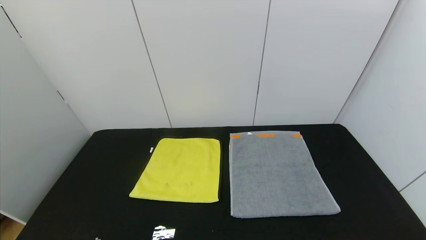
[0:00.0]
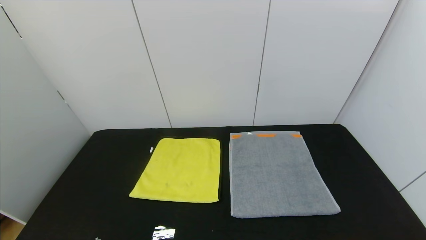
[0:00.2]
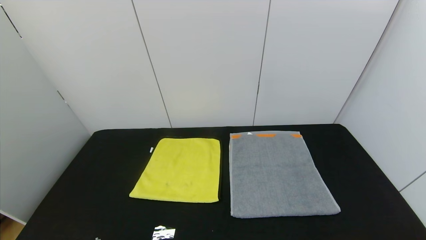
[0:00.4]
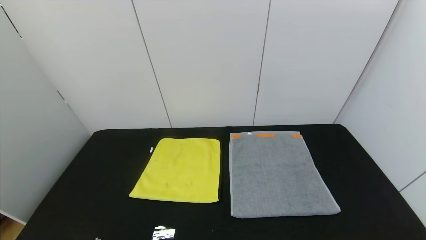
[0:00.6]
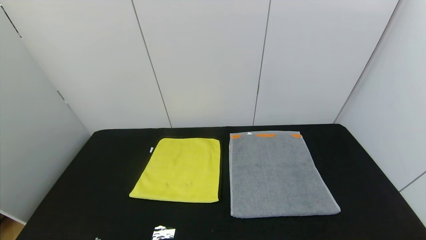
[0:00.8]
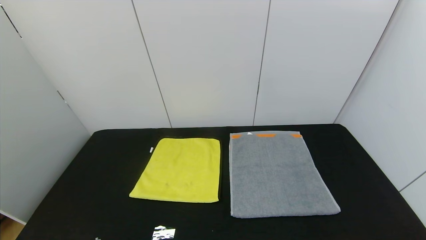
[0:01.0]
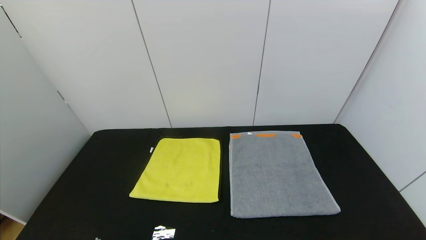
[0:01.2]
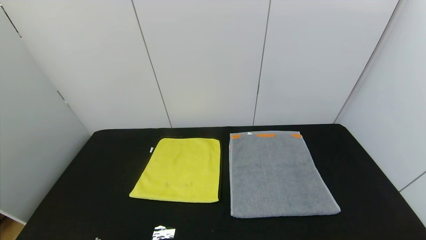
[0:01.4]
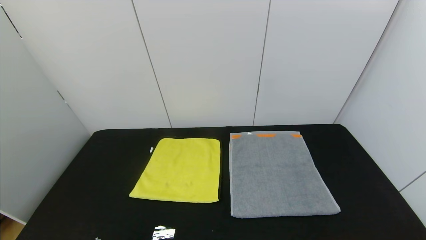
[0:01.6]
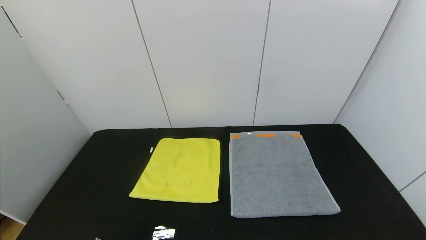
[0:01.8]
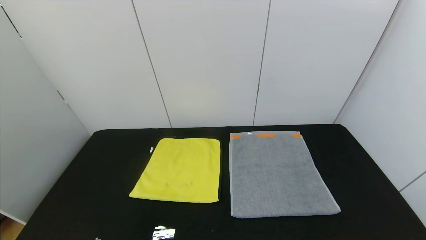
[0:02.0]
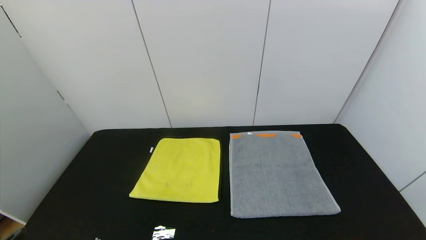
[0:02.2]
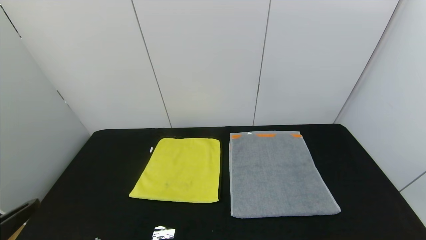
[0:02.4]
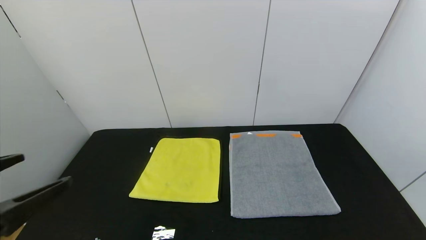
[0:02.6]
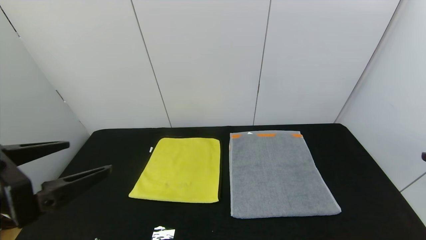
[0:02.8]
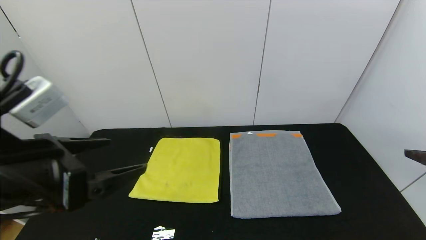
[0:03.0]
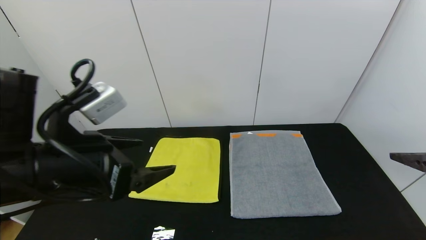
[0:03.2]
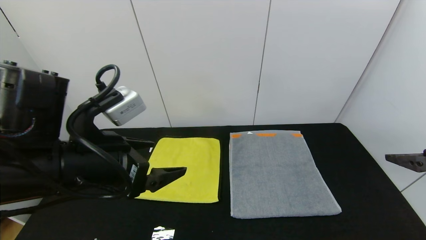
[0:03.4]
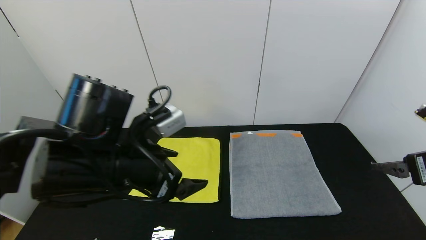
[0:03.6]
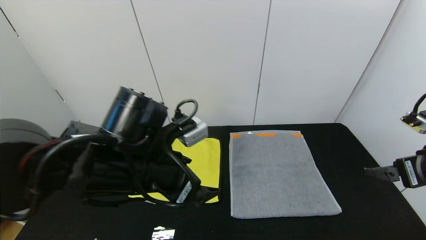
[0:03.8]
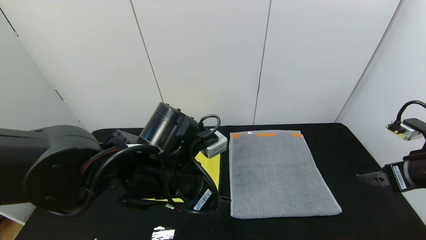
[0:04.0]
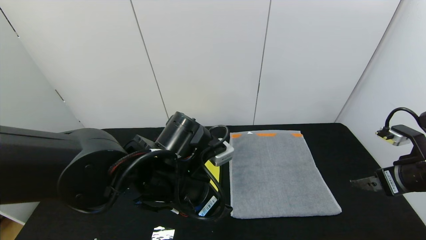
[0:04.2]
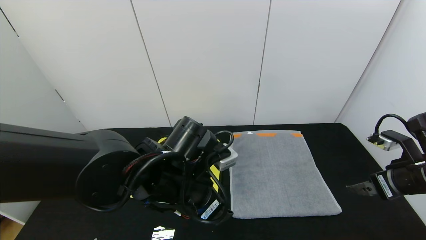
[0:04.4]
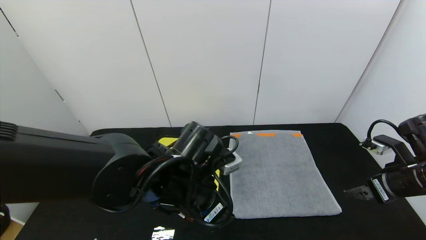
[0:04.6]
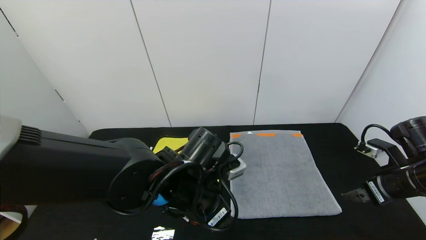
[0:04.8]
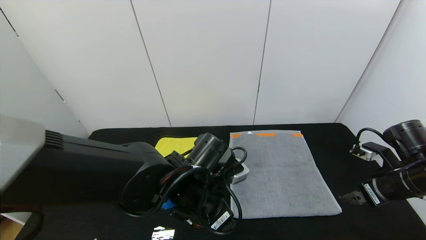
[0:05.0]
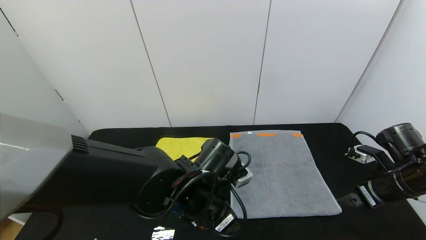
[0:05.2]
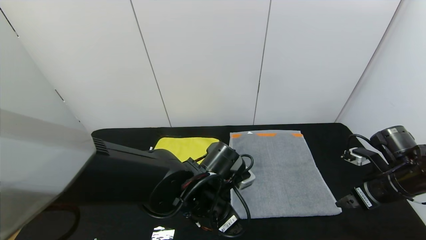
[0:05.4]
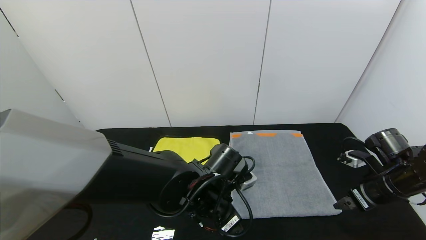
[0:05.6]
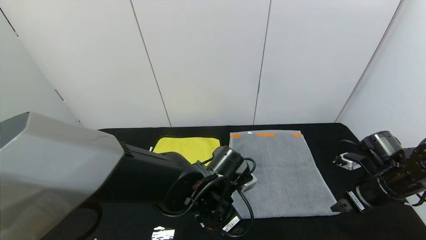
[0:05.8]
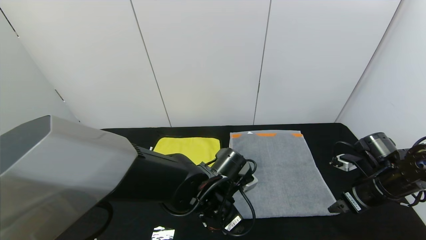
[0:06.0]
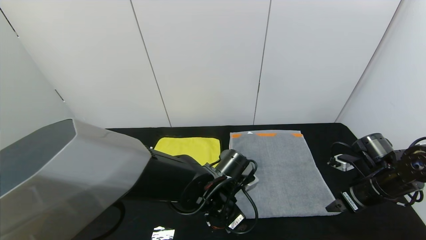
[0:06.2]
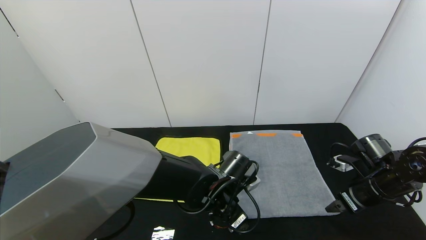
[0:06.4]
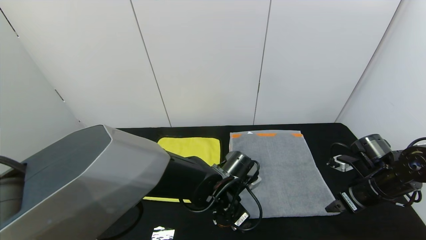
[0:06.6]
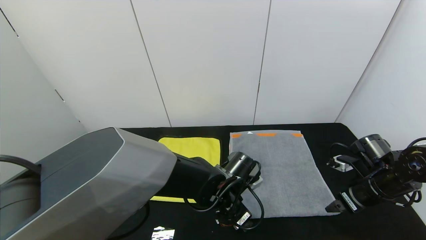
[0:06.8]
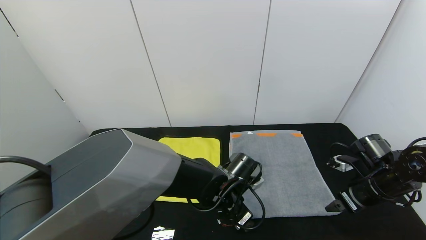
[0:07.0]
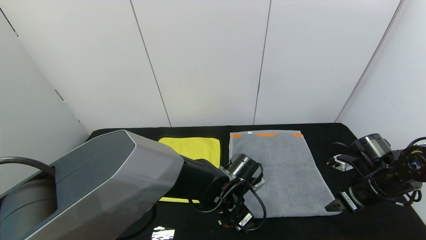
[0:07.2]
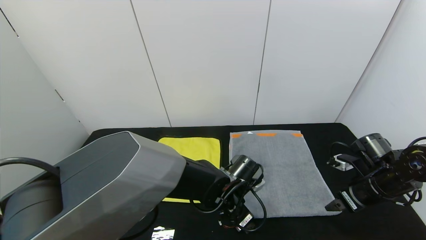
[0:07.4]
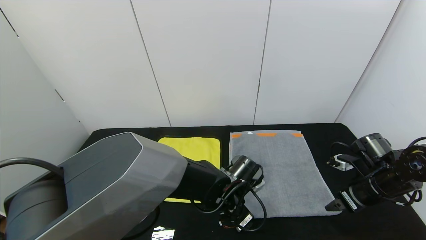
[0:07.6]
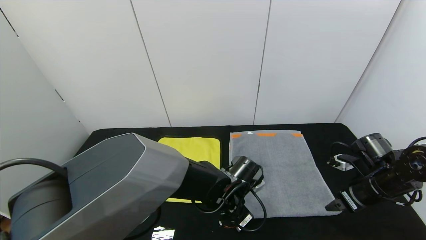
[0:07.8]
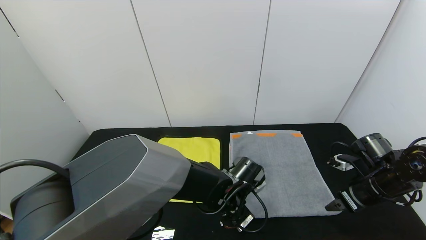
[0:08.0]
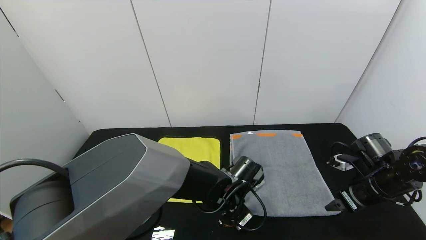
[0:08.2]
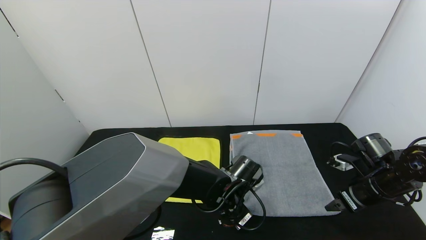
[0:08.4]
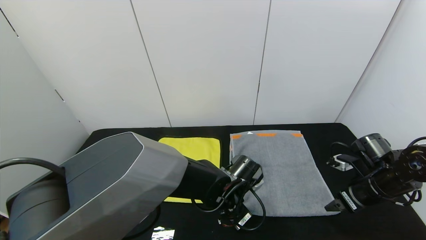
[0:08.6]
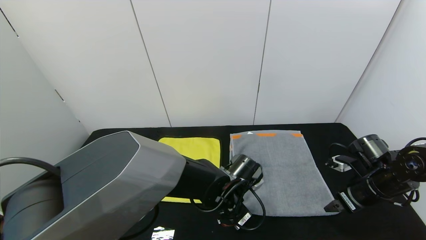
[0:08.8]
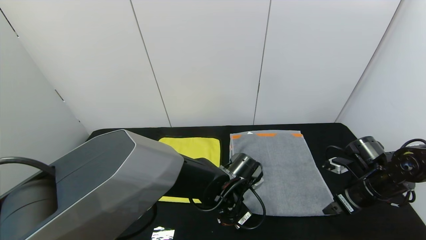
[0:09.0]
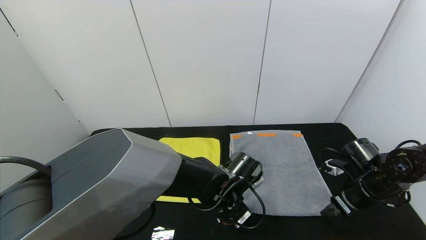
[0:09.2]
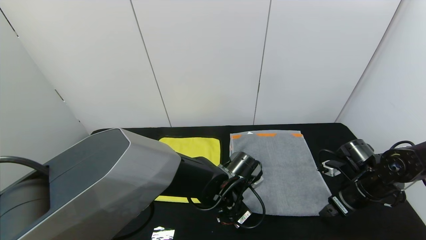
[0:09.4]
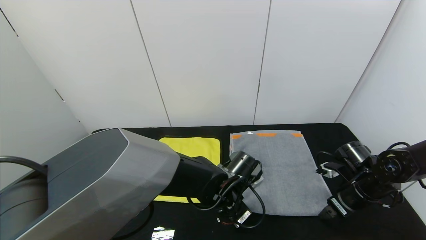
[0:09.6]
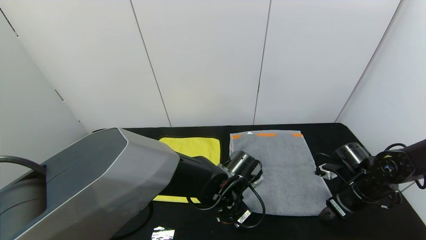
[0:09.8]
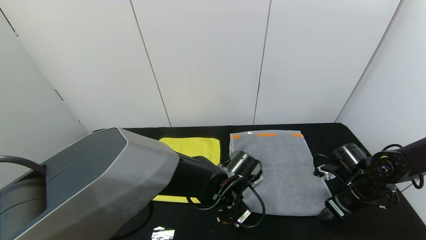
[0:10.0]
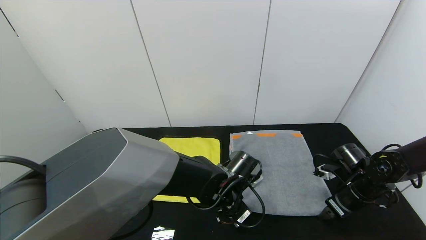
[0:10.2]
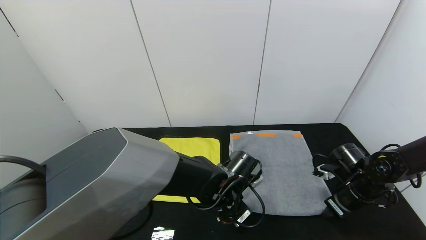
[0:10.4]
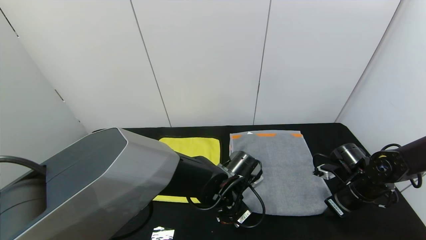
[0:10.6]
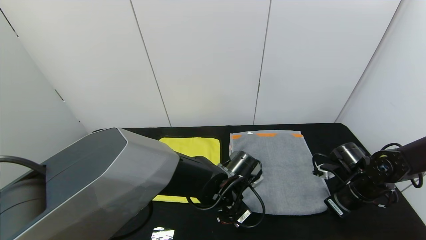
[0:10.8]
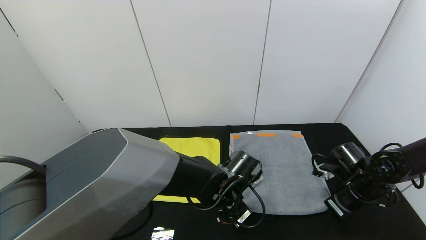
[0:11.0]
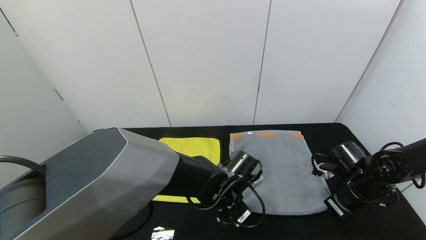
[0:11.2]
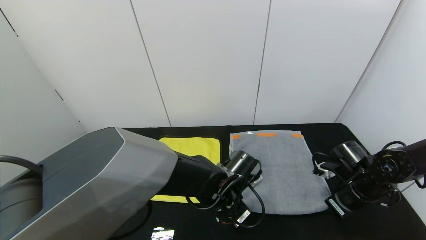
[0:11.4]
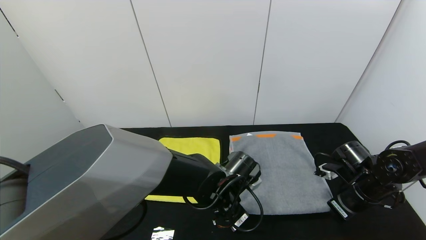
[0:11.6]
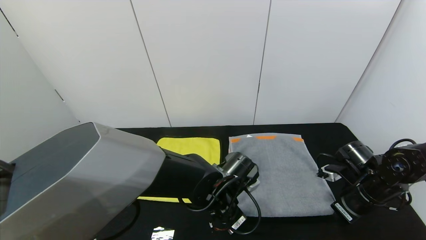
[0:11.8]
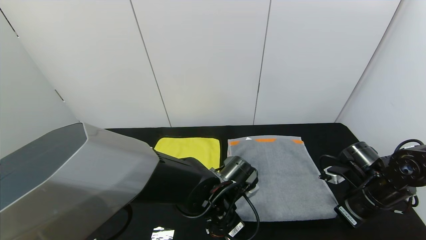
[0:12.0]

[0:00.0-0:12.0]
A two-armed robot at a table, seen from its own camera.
Task of the whole recording: Use the gripper to fold the yellow towel and grey towel in half twice,then put the yellow towel on the grey towel.
1.6 to 3.0 s: The grippers both shift forward and upward by about 20 cm.
3.0 to 4.4 s: The left gripper heads to the right, downward and forward, covering some 20 cm. Meanwhile the right gripper is displaced forward and downward by roughly 15 cm.
4.4 to 6.0 s: The left gripper is displaced downward and to the right by some 10 cm. The right gripper moves downward, some 5 cm.
6.0 to 7.6 s: The left gripper ends up approximately 5 cm from where it was.
7.6 to 9.0 s: The left gripper closes its fingers.
9.0 to 10.4 s: The right gripper closes.
10.4 to 12.0 s: The right gripper ends up about 5 cm from where it was, and closes.

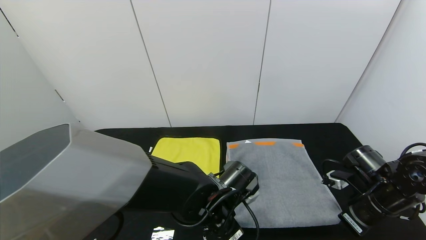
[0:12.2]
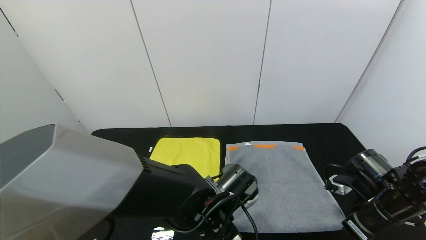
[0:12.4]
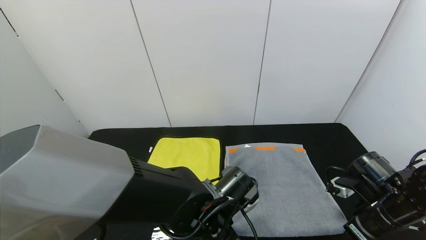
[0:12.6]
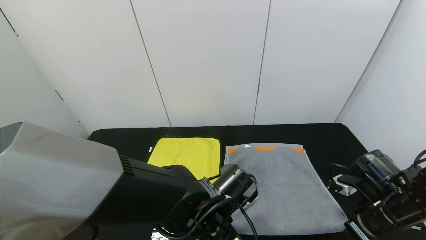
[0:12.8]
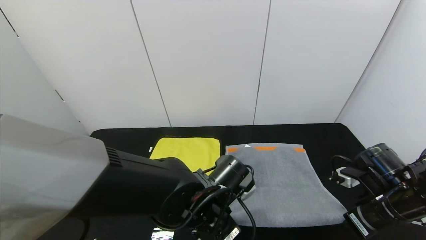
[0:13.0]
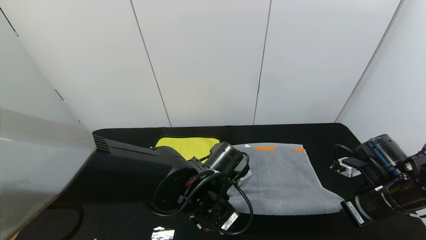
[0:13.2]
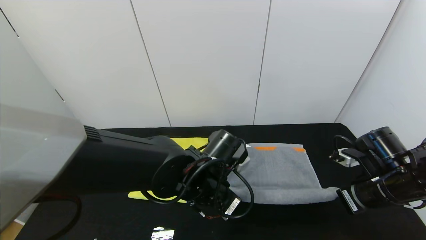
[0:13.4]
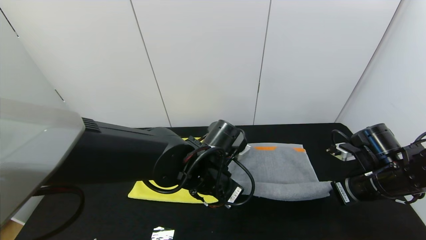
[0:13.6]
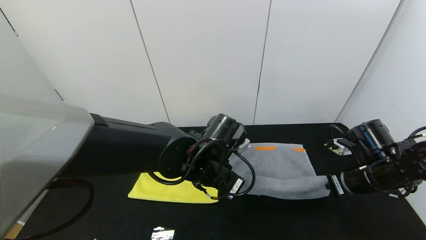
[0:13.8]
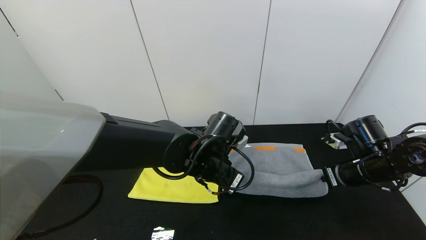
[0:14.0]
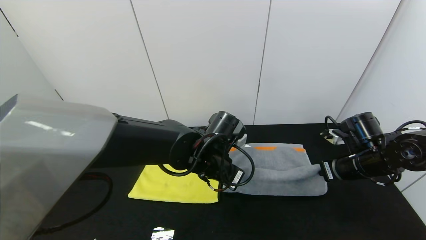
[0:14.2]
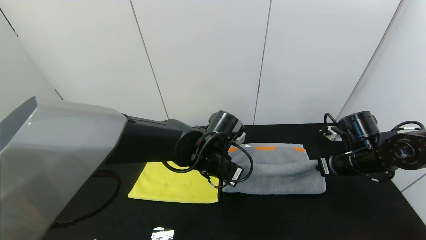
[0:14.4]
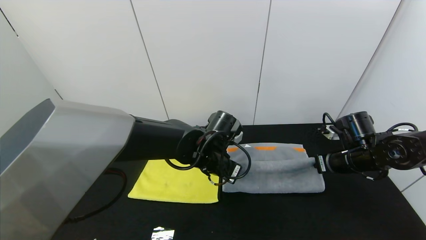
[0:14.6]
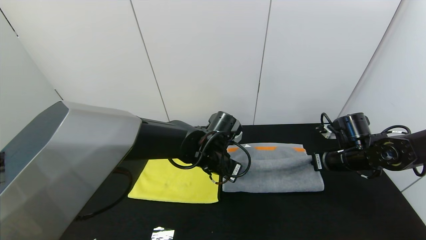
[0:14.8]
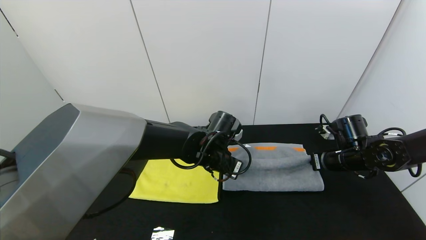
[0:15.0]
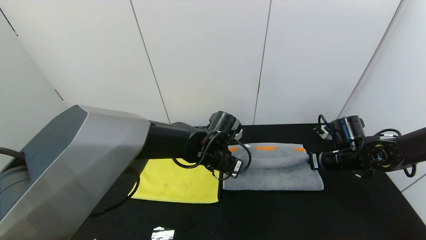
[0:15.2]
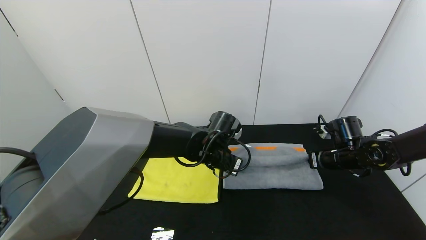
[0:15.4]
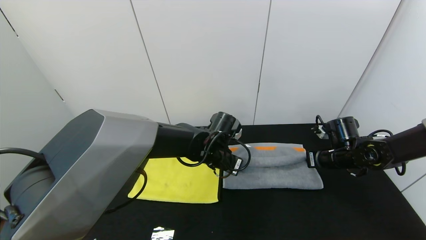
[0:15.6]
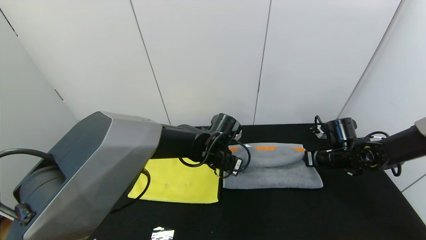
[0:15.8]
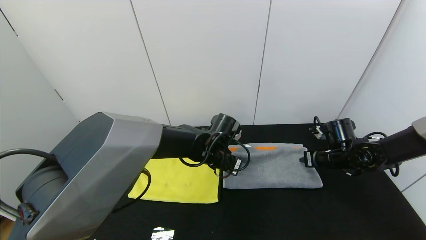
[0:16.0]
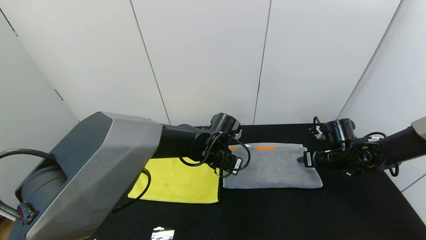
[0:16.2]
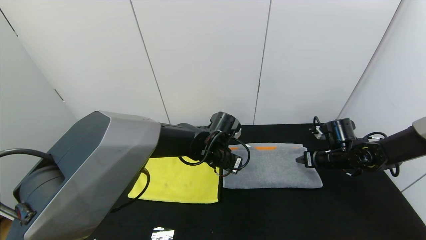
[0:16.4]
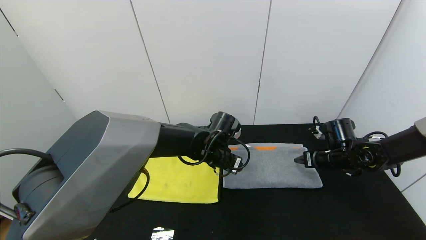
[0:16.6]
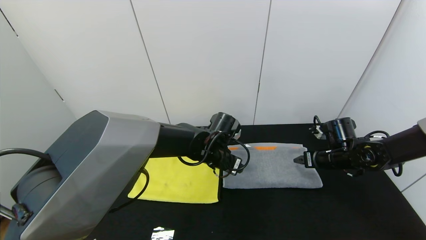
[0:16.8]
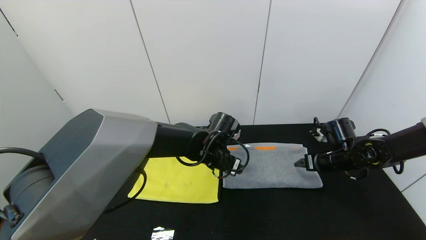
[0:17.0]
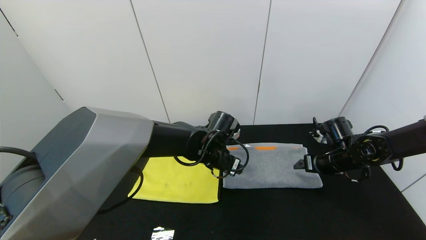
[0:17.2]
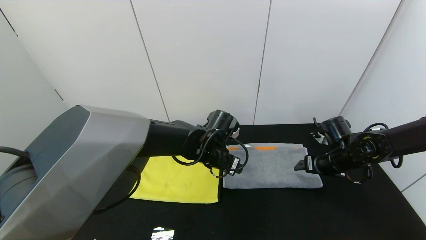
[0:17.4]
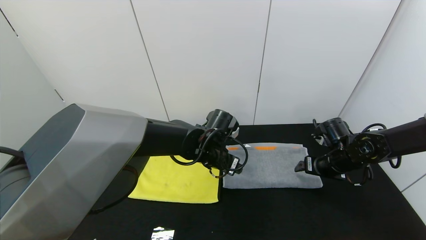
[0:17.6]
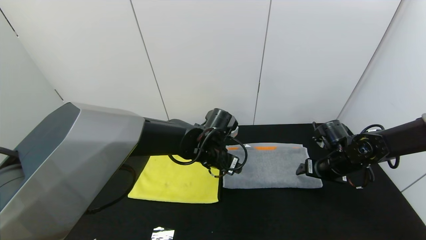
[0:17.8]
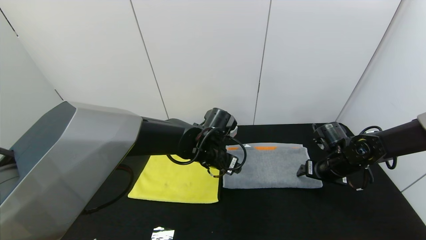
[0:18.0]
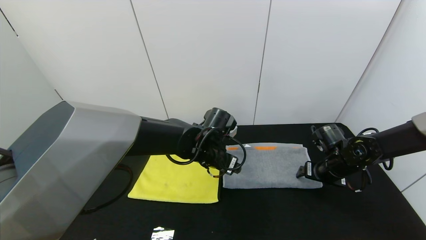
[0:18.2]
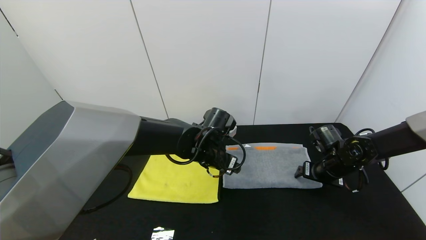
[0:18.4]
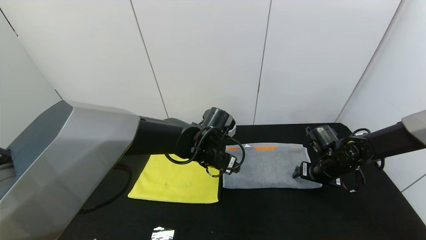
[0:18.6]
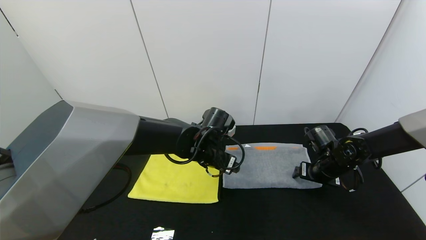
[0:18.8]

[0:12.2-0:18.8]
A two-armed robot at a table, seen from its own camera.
Task of the whole recording: Use the gripper to fold the yellow towel and grey towel in half twice,then put the yellow towel on the grey towel.
Step, 12.2 to 17.0 s: Fold the gray towel upwards with the left gripper.
12.2 to 13.8 s: The left gripper shifts roughly 5 cm upward; the right gripper moves some 5 cm.
13.8 to 15.4 s: The two grippers go approximately 10 cm forward.
15.4 to 17.2 s: The left gripper opens up. The right gripper opens.
17.2 to 18.8 s: The grippers stay close to where they were, moving slightly.
